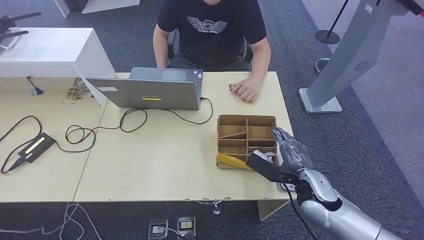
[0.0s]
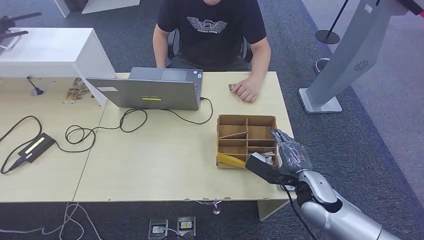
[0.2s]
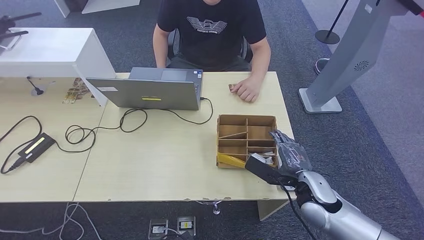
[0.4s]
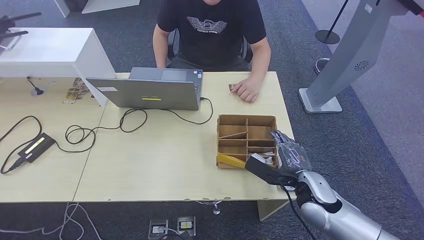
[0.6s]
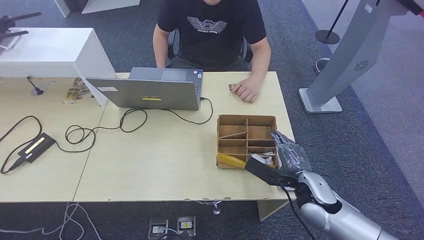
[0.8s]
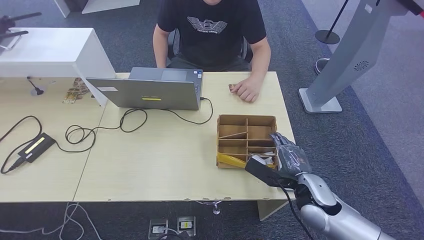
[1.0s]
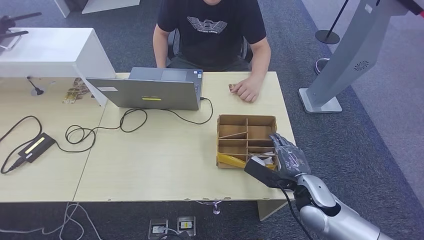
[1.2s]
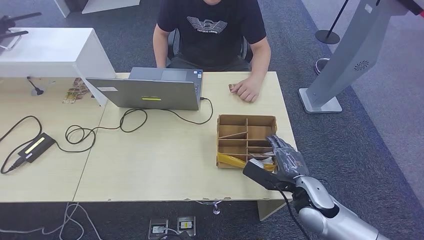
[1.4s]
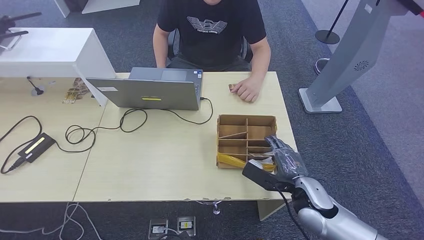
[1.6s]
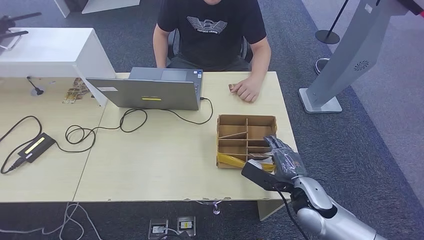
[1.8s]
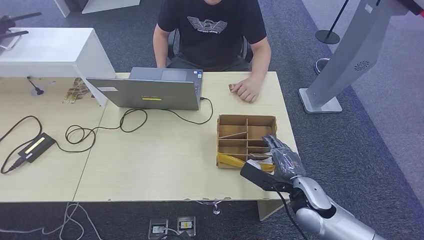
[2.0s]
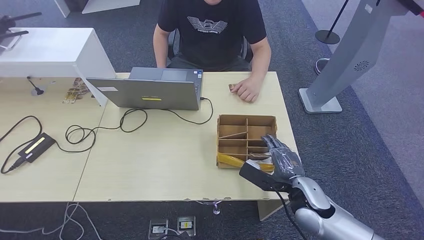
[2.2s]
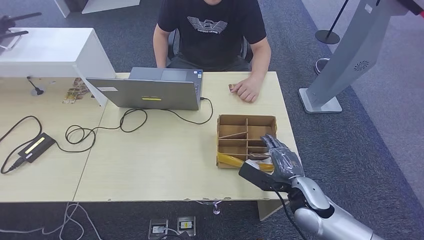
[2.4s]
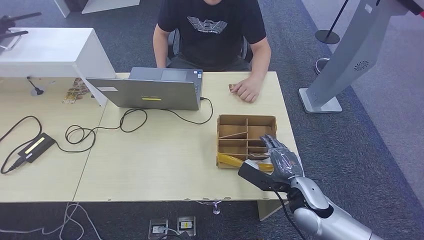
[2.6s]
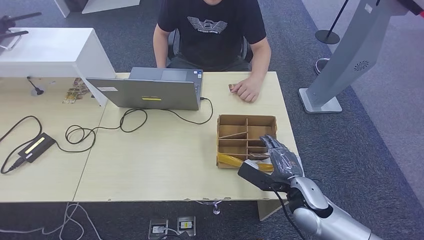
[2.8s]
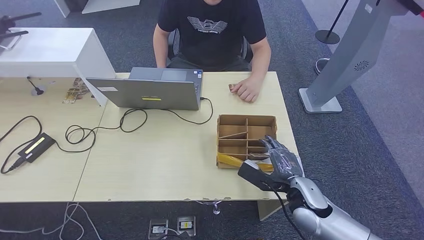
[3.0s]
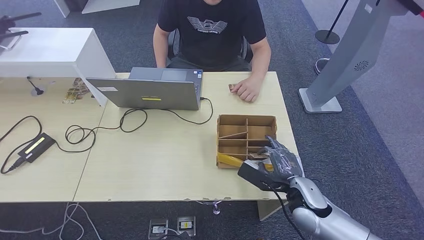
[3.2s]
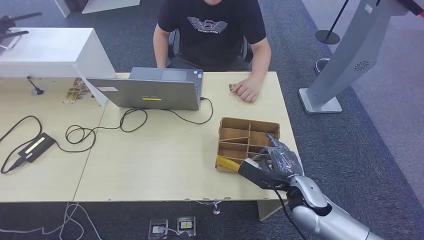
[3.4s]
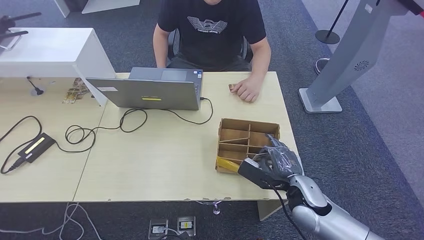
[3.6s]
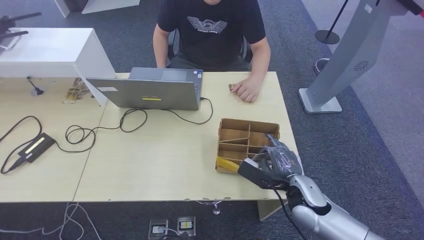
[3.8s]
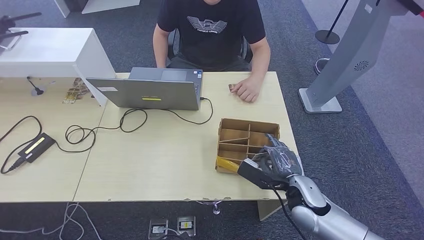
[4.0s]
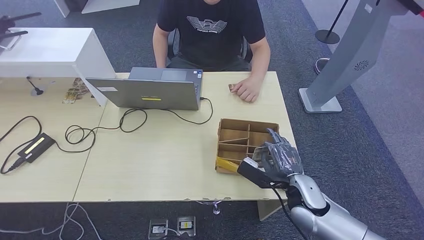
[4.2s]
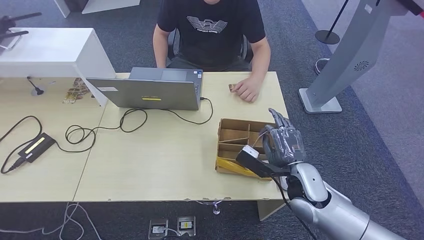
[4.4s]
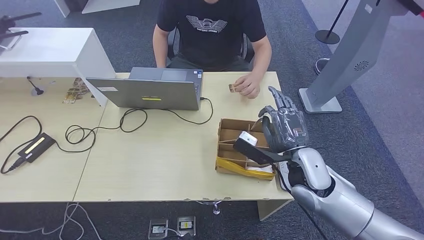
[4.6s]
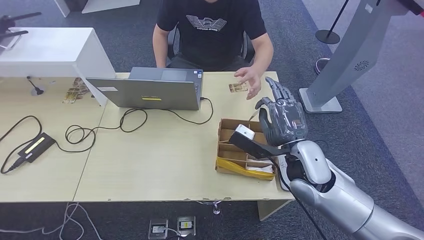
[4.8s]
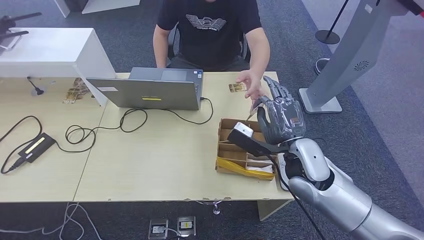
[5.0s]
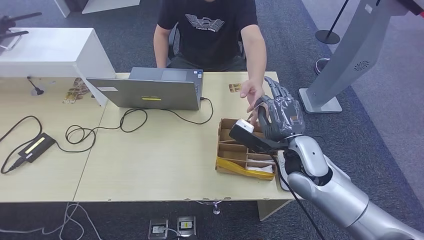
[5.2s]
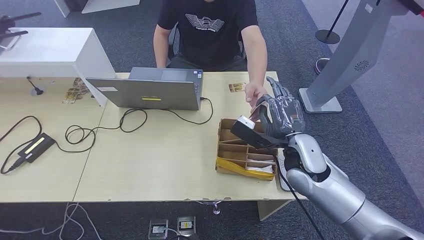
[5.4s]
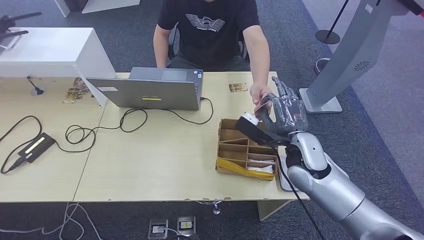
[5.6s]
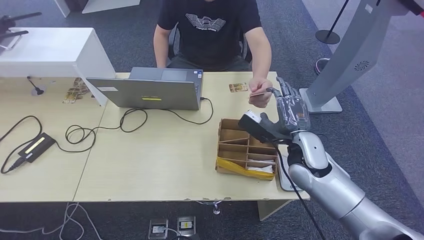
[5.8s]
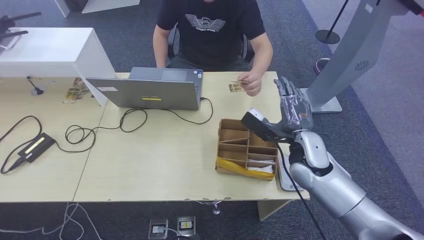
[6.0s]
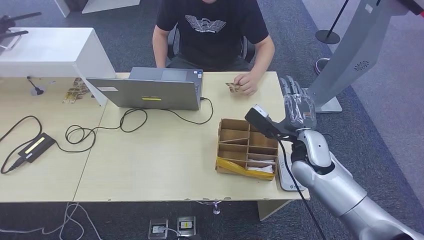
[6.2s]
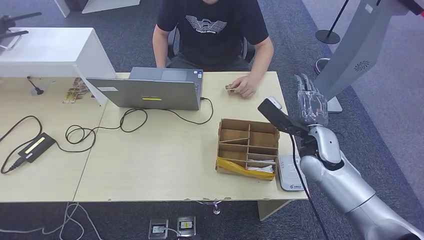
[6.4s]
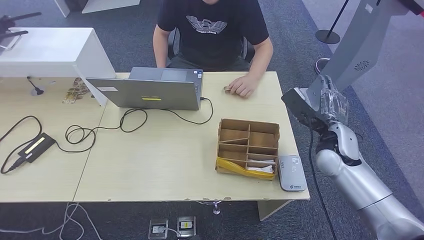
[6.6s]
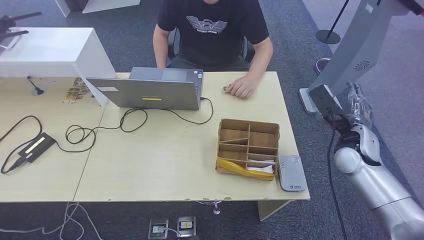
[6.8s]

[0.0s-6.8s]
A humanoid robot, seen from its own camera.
Step, 2.4s to 4.8s: Pick up the room key from the key card box.
Step, 5.2s to 6.8s: Hand the room key to the person.
0.0s to 1.4s: The hands make only small movements.
1.4s to 2.8s: The two hands keep their place.
2.8s to 4.0s: The two hands keep their place.
4.0s to 5.4s: The right hand shifts about 10 cm upward and forward.
5.4s to 6.8s: The right hand is displaced to the right by approximately 15 cm.

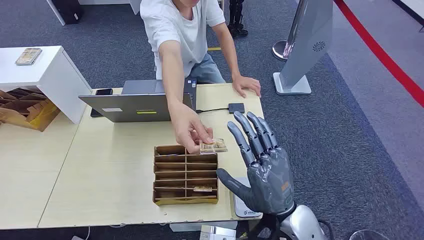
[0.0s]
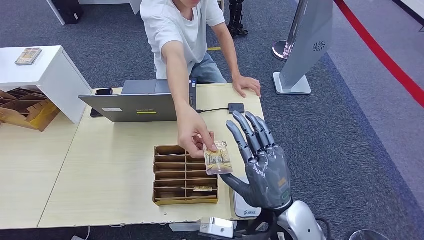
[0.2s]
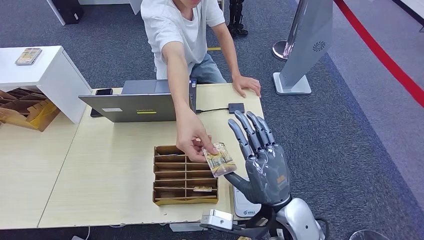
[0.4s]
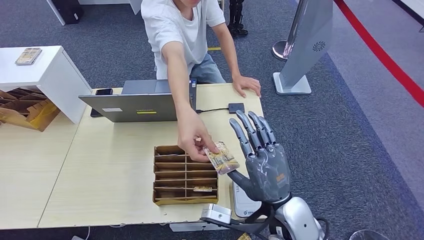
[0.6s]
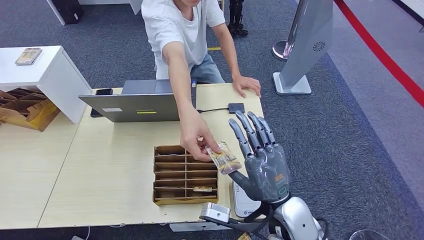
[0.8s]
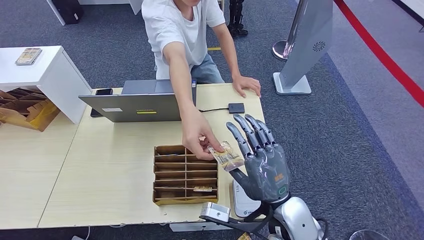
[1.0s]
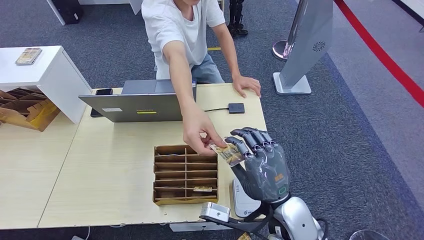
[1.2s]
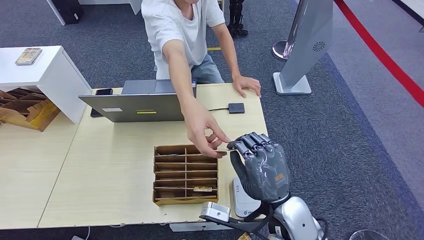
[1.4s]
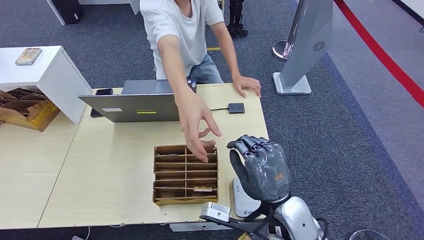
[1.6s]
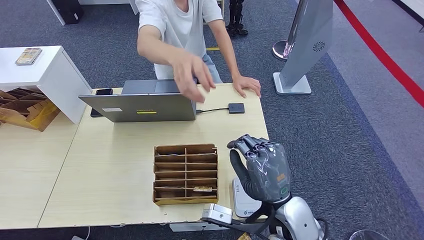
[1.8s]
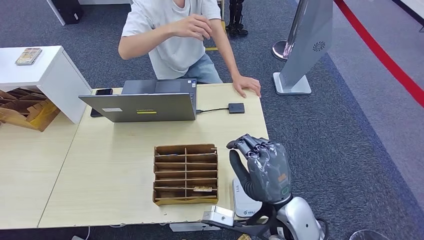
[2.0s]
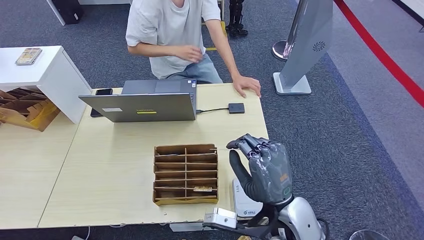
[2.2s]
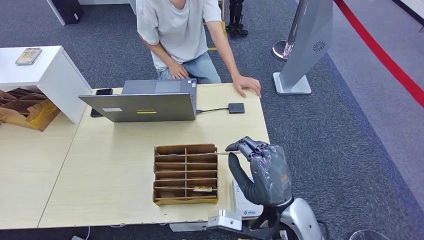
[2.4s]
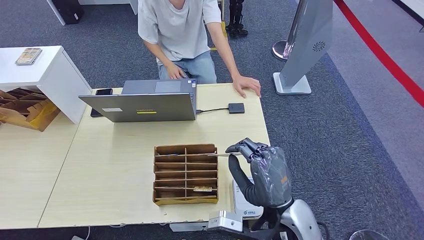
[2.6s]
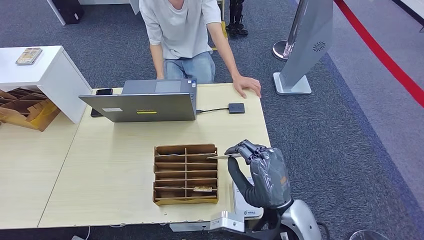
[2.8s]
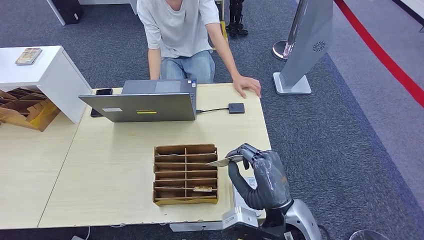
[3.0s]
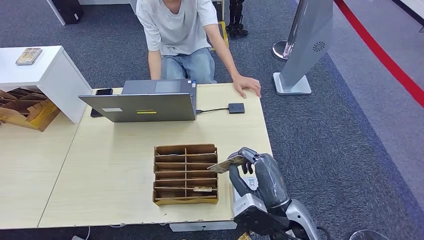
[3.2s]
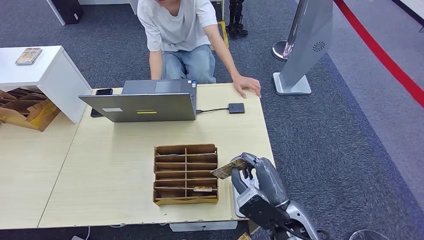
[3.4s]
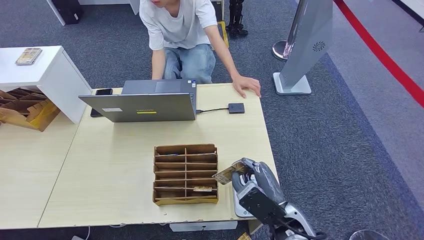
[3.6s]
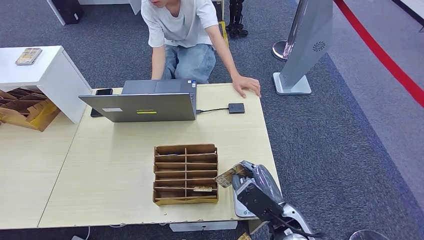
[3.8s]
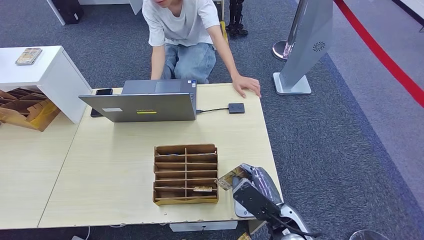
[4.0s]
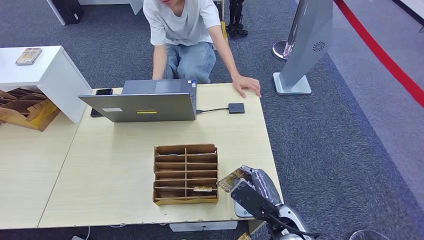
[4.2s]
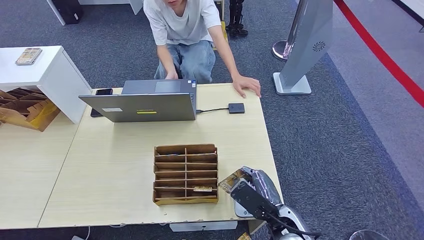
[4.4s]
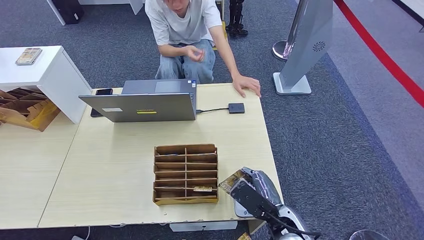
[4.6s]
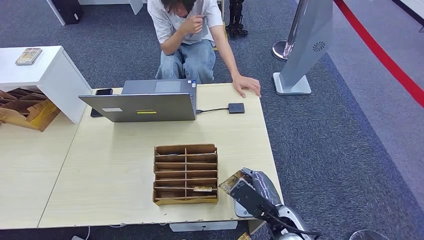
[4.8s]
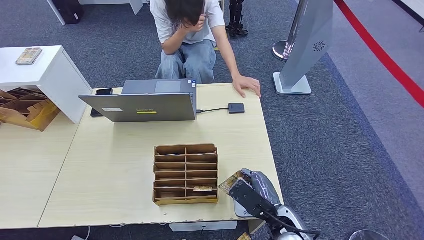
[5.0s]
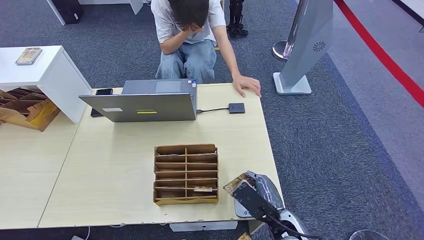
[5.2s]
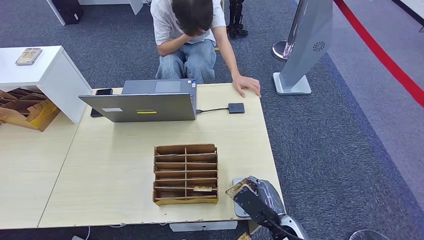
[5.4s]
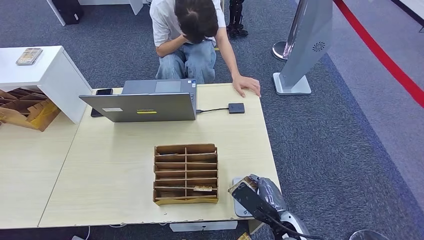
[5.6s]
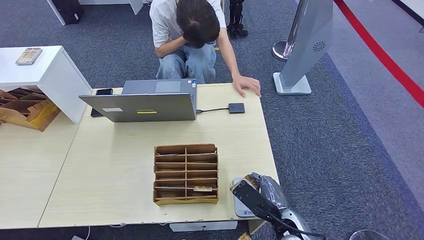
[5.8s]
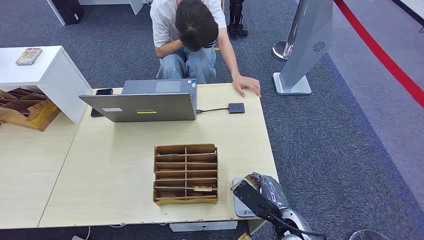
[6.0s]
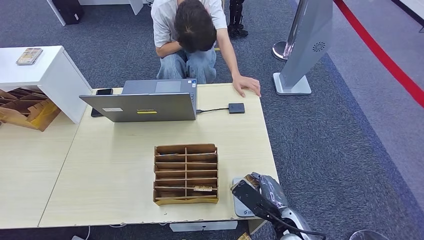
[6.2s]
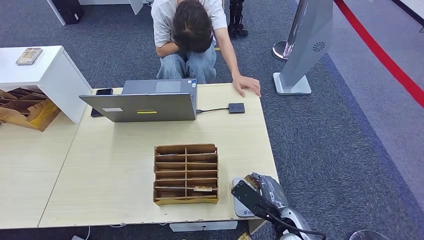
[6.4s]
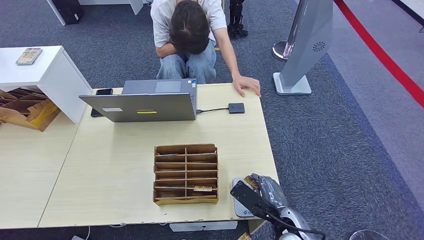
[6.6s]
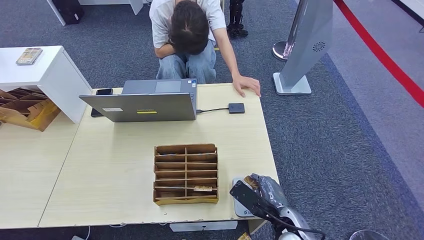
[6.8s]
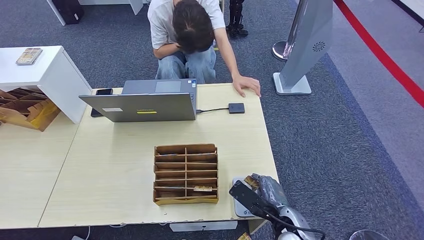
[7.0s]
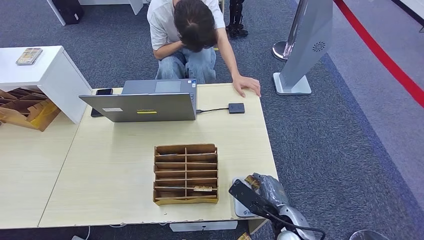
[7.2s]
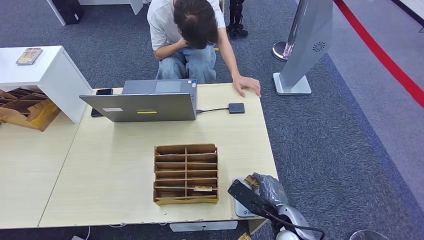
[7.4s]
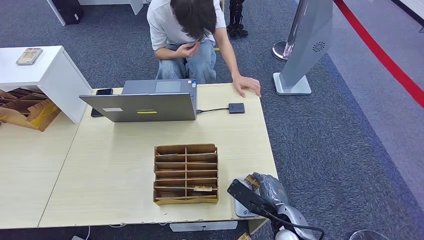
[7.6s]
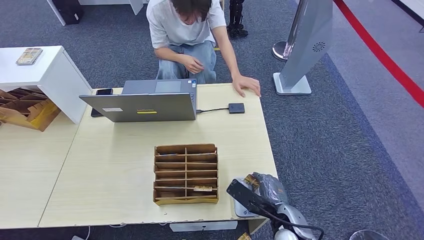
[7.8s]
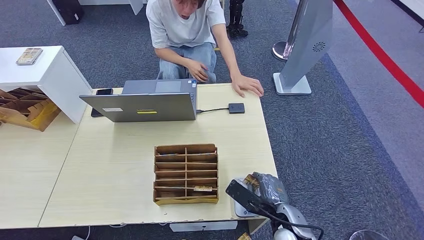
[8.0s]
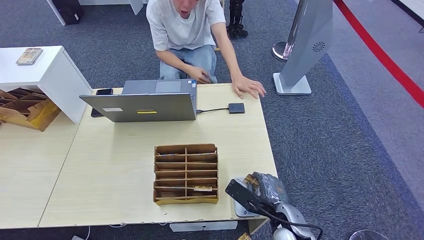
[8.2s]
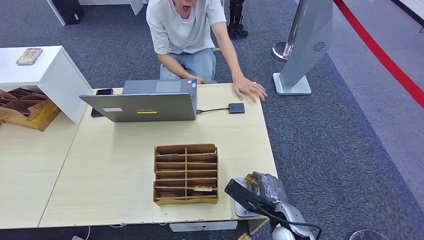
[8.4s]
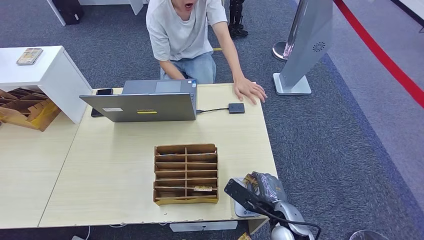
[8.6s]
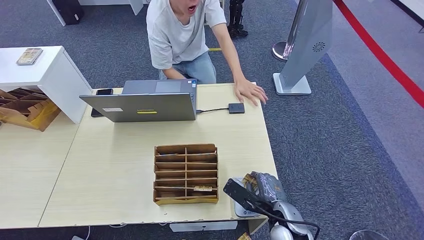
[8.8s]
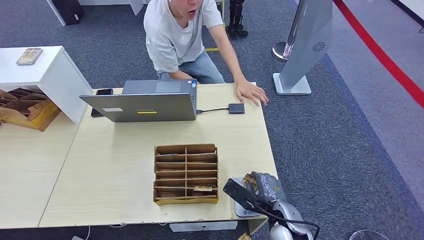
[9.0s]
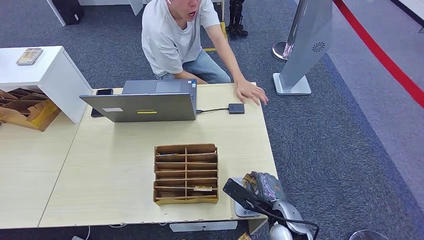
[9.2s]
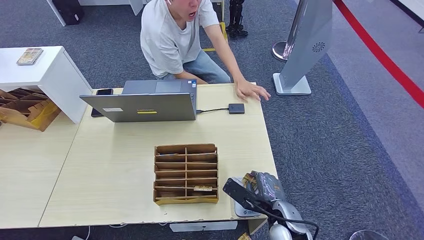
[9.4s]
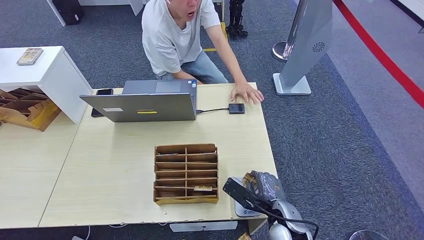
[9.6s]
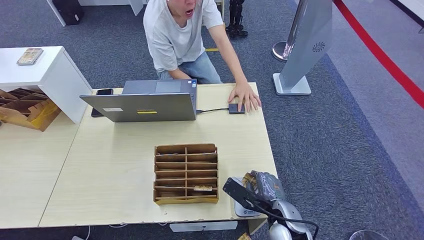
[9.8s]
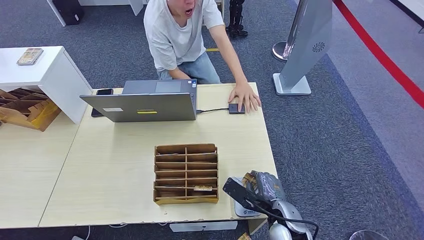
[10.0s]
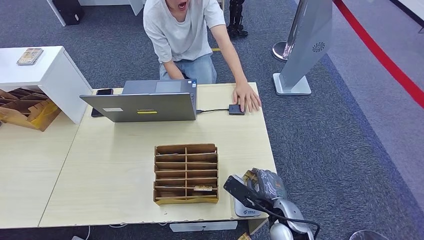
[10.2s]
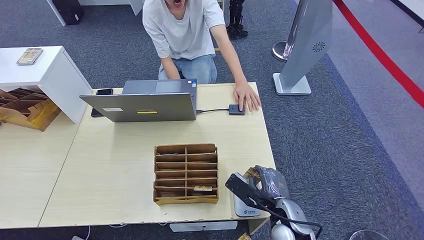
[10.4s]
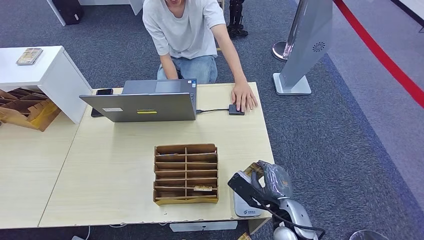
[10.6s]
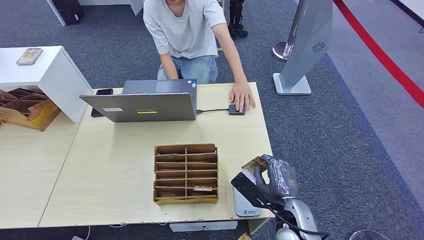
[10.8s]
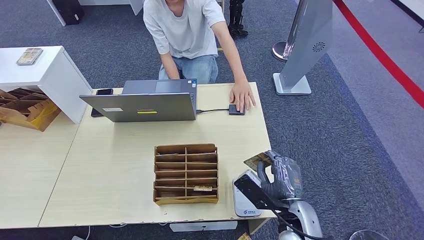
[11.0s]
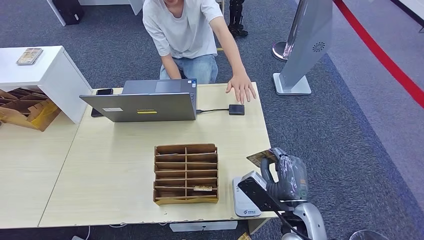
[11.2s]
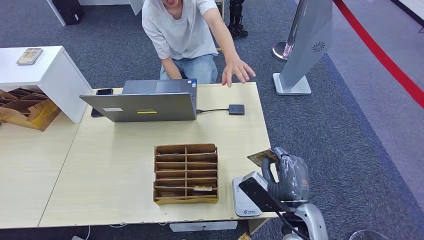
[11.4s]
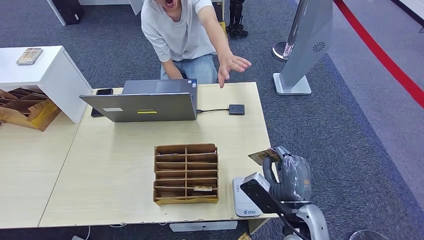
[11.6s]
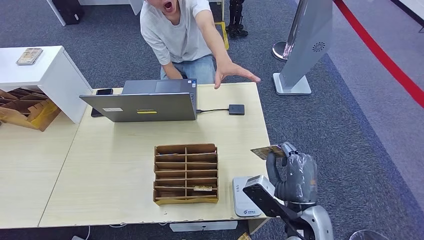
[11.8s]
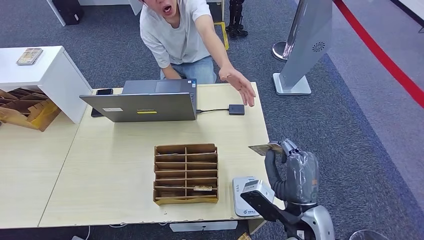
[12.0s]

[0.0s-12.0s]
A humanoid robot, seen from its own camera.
Step, 0.0s to 1.8s: Take the ID card from the person's hand.
Step, 2.0s to 9.2s: Place the ID card on the card reader.
3.0s to 4.4s: The right hand is displaced downward by about 10 cm.
4.4s to 6.0s: There are only small adjustments of the hands.
6.0s to 9.0s: The hands make only small movements.
9.0s to 10.4s: There are only small adjustments of the hands.
10.4s to 12.0s: The right hand is displaced upward by roughly 10 cm.
